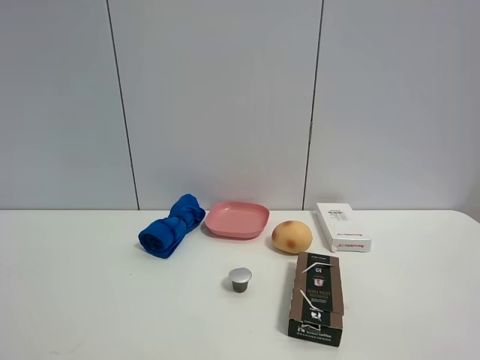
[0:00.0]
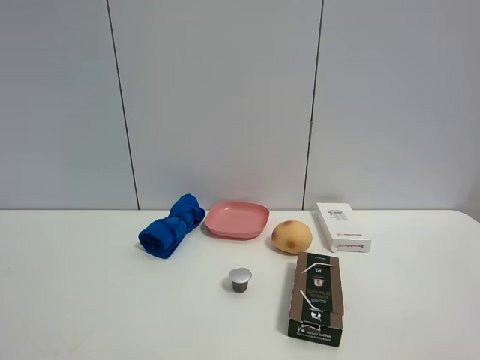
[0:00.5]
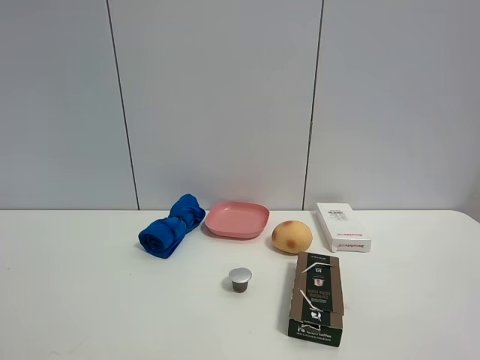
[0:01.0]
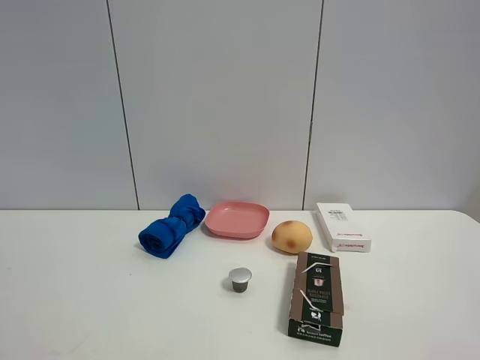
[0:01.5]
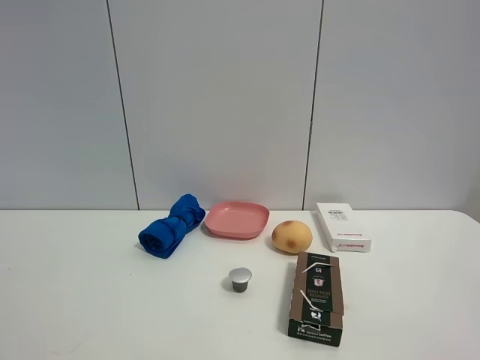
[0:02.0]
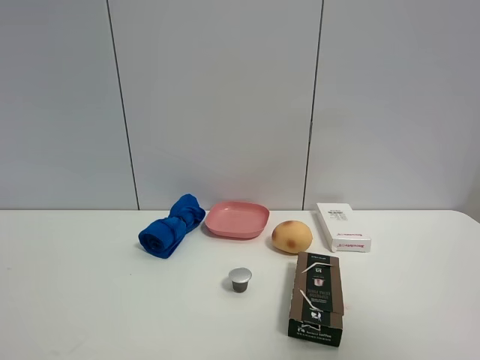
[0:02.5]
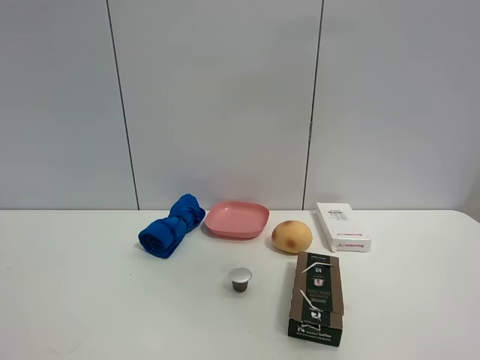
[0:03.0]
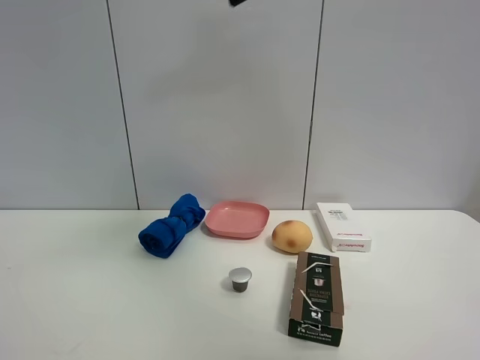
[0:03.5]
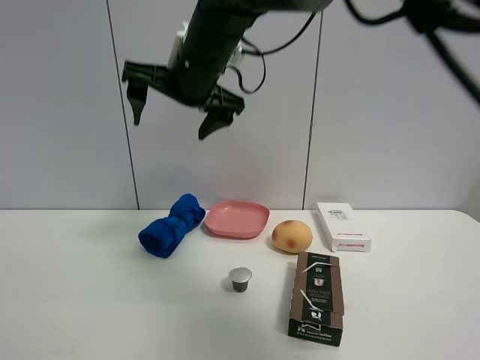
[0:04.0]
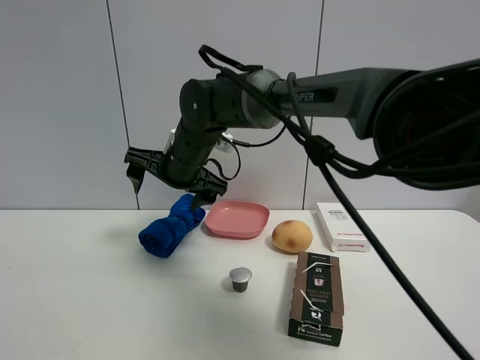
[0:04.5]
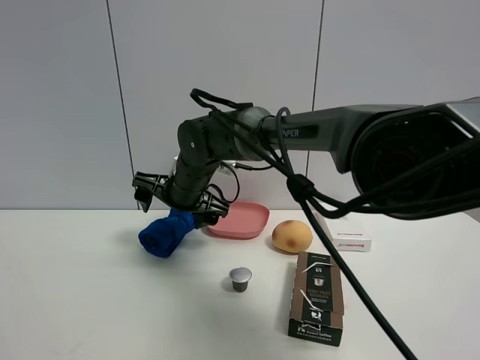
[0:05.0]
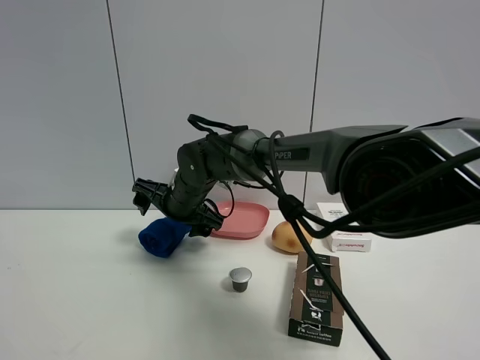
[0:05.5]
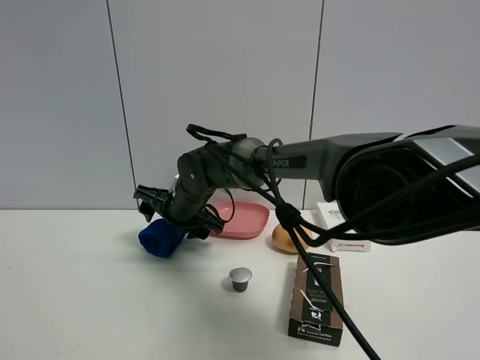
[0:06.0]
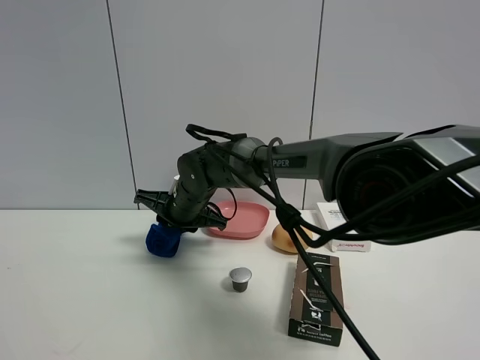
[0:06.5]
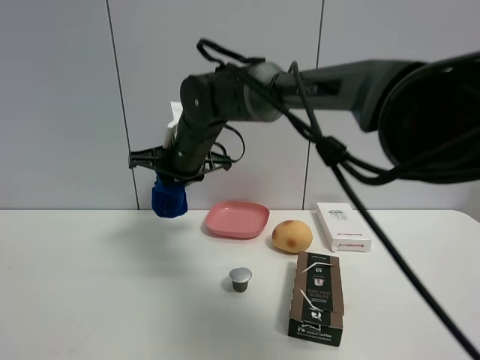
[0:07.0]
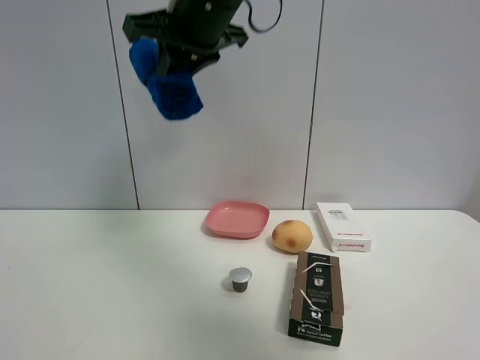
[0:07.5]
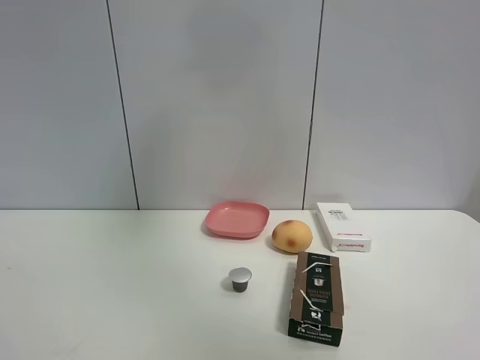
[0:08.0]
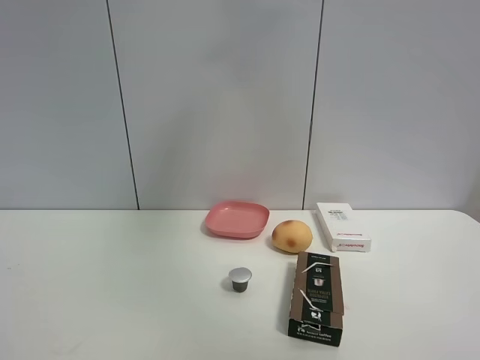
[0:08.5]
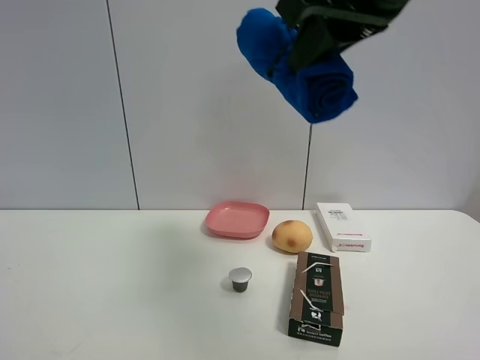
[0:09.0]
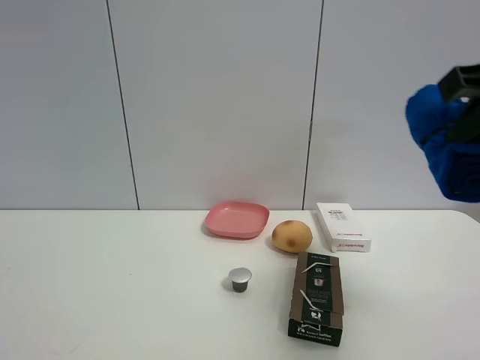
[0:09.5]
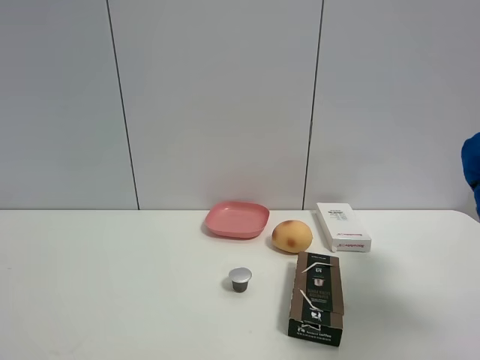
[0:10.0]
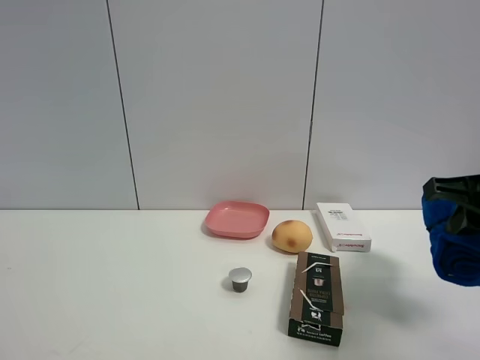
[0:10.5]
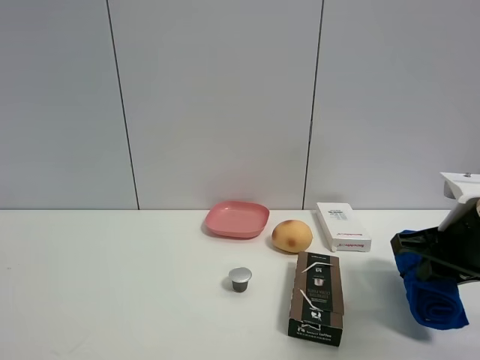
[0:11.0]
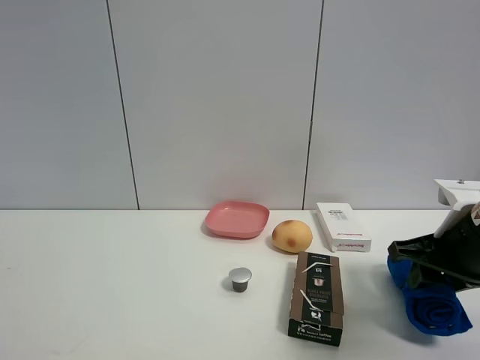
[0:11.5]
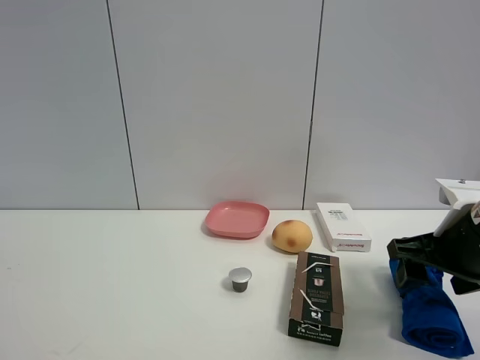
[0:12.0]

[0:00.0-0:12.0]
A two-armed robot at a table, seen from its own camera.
Task of the whole recording: the gripper move the object.
Step, 0:00.0 to 0:06.0: Grasp the blue towel with the right gripper.
Step, 0:06.5 to 0:11.5: Place the blue towel on the table with the right gripper.
0:02.0 to 0:04.0: The right gripper shifts about 50 cm forward and to the left.
0:04.0 to 0:06.0: The right gripper is displaced downward by approximately 25 cm.
0:06.0 to 0:08.0: The right gripper shifts some 40 cm upward, and closes up.
0:08.0 to 0:10.0: The right gripper travels to the right, downward and backward by about 35 cm.
0:10.0 to 0:12.0: The right gripper is displaced downward and forward by some 15 cm, and opens.

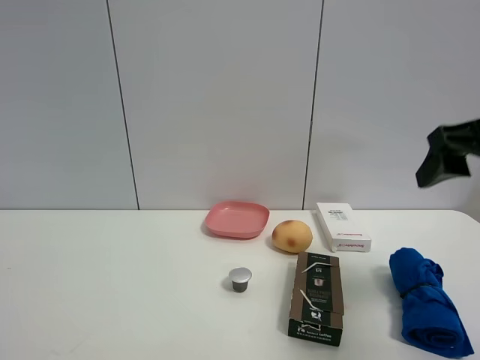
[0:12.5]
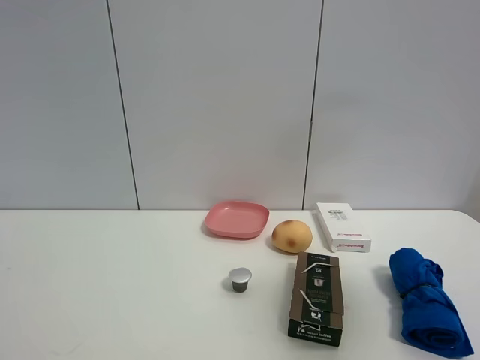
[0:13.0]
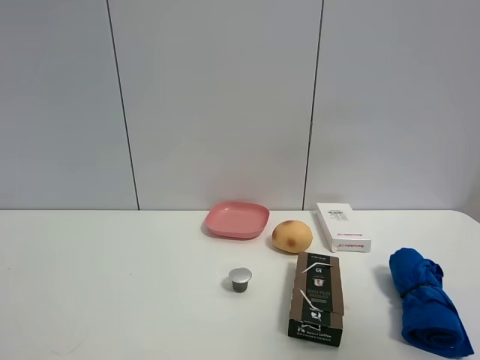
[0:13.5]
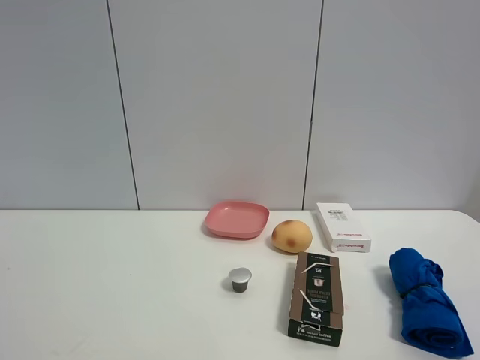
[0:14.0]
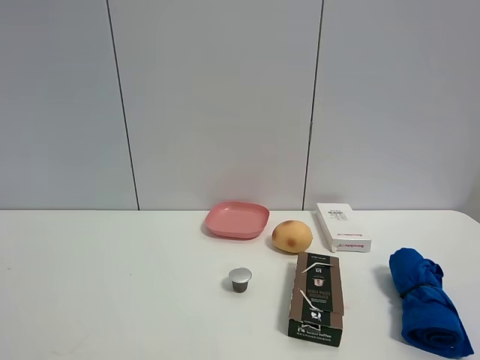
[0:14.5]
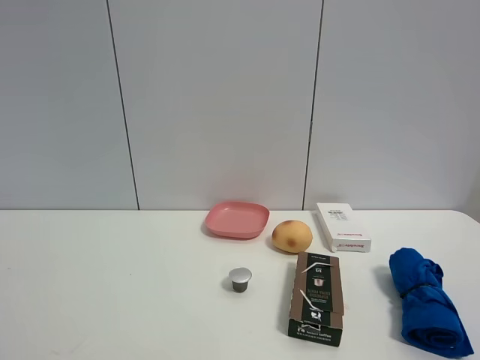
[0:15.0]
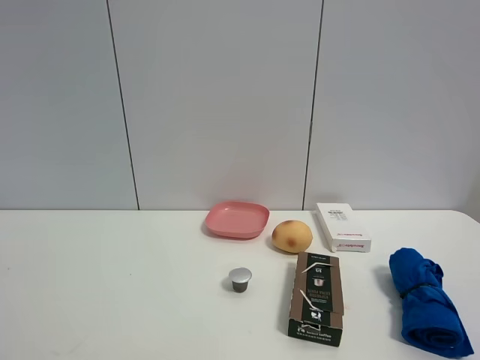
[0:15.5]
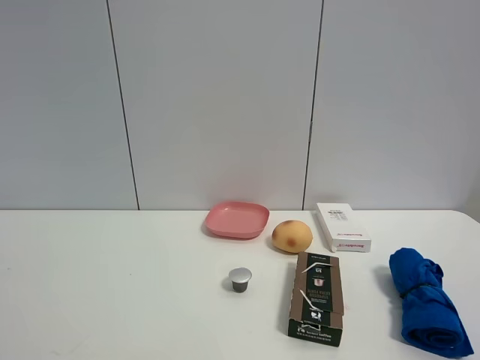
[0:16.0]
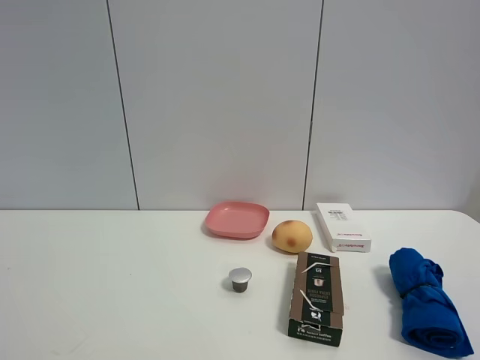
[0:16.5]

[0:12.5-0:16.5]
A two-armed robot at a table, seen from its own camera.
Task of the whole recording: the gripper move the object.
0:12.5 to 0:14.5: The right gripper shifts about 25 cm backward.
0:14.5 to 0:16.5: Both grippers stay about where they are.

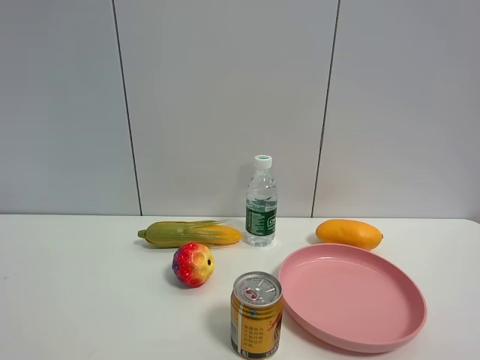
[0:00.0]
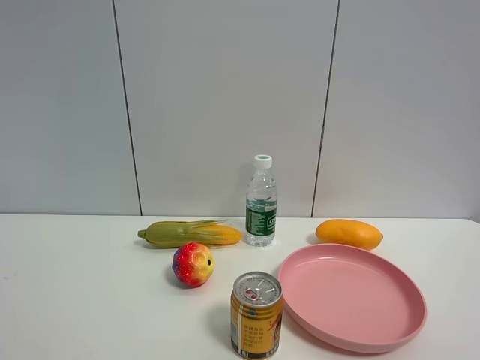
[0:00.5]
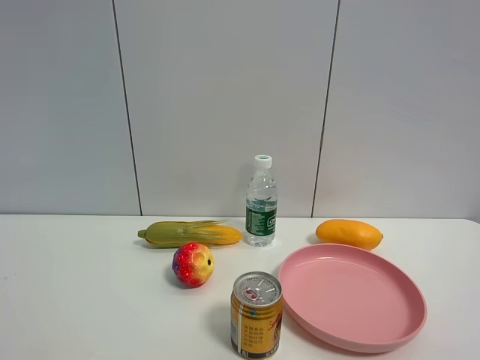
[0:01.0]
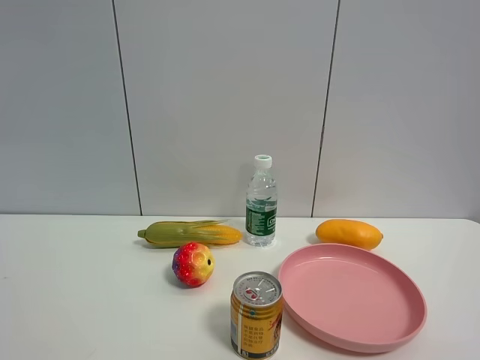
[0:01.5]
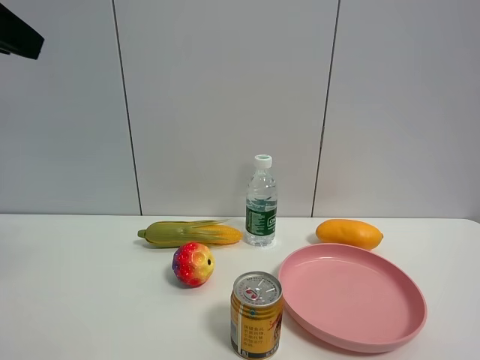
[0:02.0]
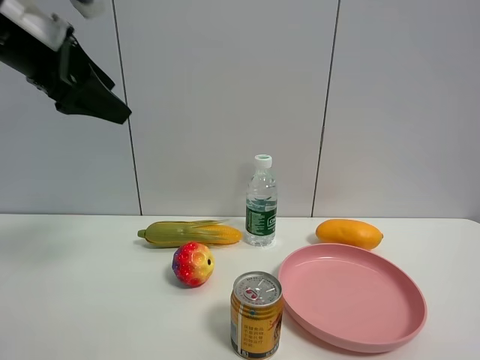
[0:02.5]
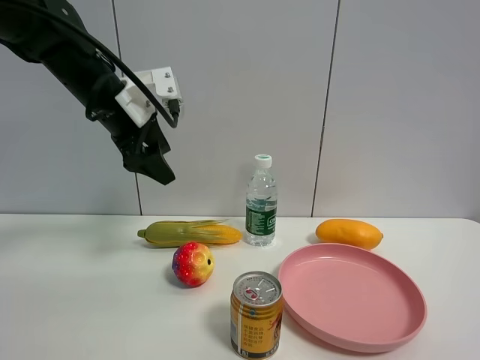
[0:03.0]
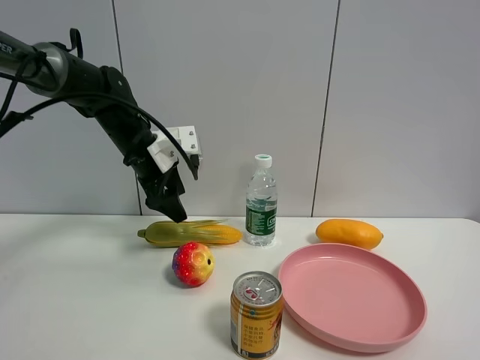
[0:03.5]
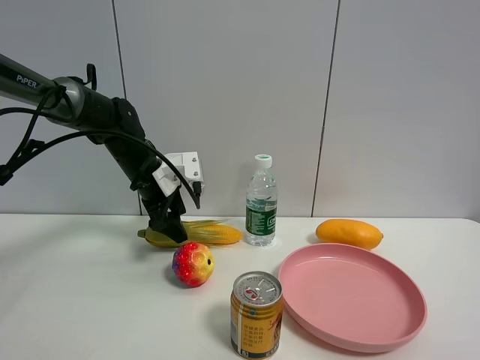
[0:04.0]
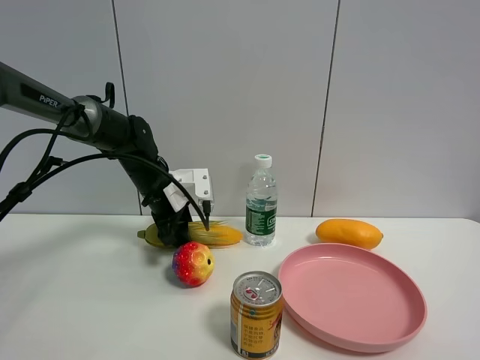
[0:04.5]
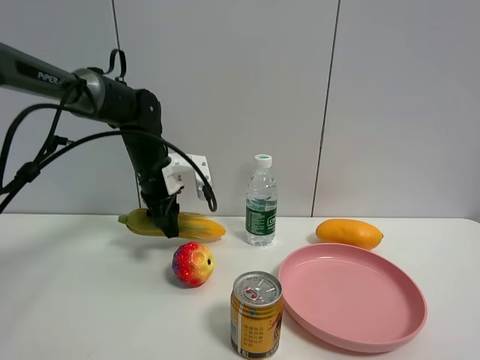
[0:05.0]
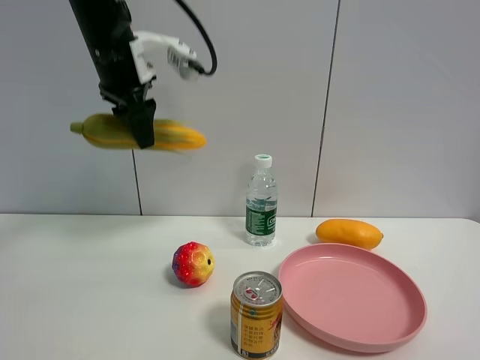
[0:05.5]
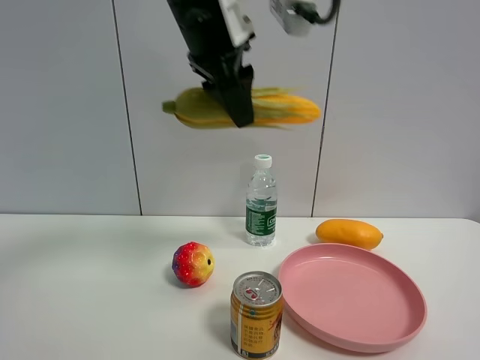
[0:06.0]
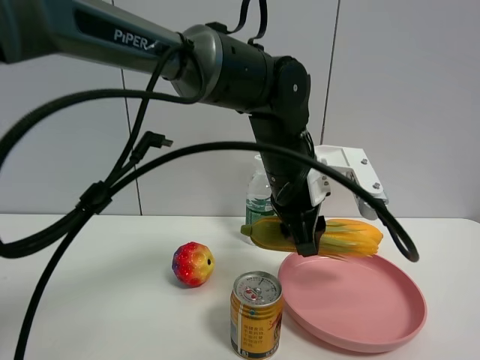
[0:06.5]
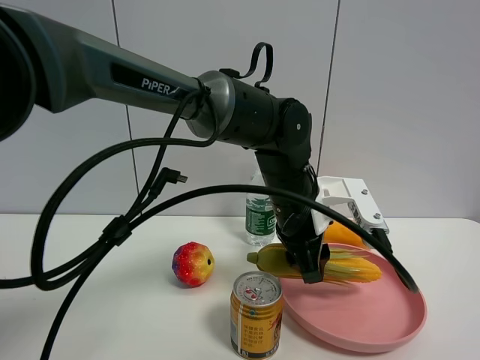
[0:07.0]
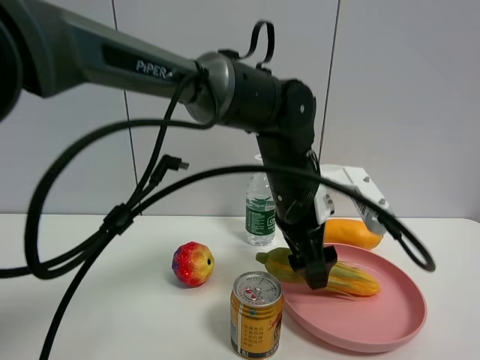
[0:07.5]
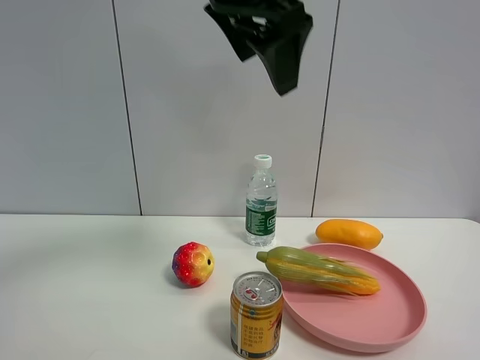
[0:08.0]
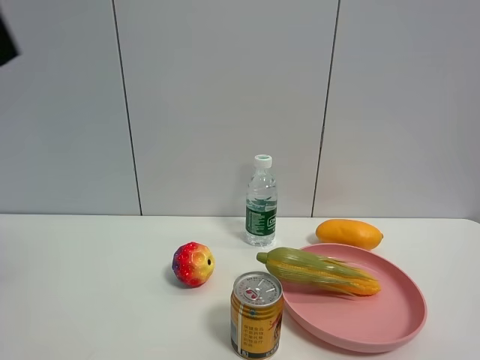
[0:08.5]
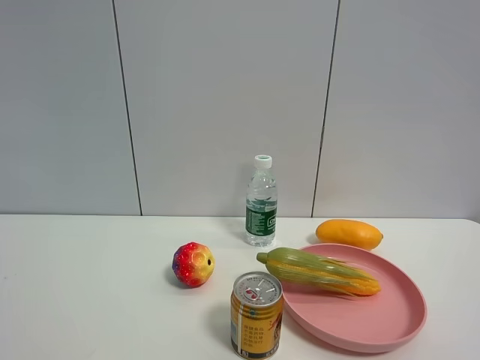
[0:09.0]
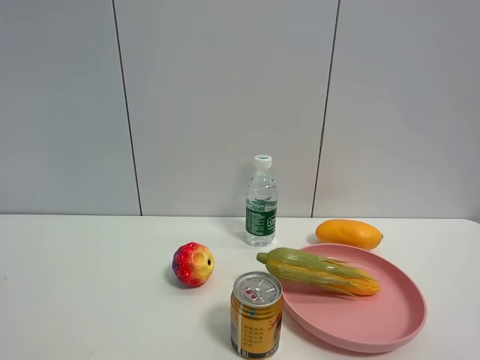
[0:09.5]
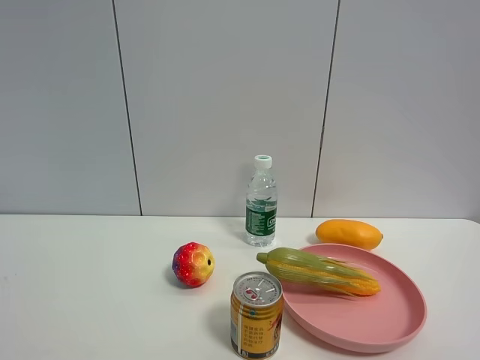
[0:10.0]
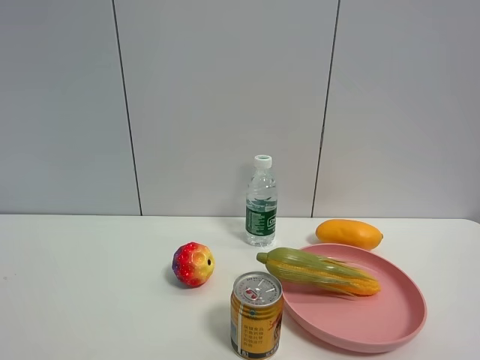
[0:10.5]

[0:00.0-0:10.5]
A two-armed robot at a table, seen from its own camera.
Task of the whole recording: the gripper move the object.
Step, 0:00.0 to 0:04.5: Grasp the corn with the left gripper.
Step, 0:05.0 to 0:07.5: Place the corn into the pink plate with the left gripper.
0:00.0 to 0:02.0: The left gripper heads forward, covering approximately 25 cm.
0:02.0 to 0:04.0: The left gripper shifts roughly 35 cm downward, forward and to the right.
0:04.0 to 0:06.5: The left gripper heads to the right and backward, covering some 25 cm, moves some 20 cm upward and comes back, and closes.
0:06.5 to 0:08.5: The left gripper shifts approximately 40 cm to the left, upward and backward, and opens its fingers.
